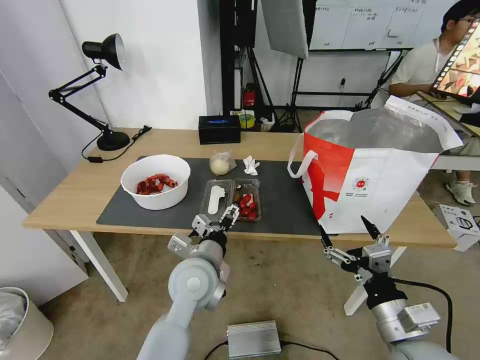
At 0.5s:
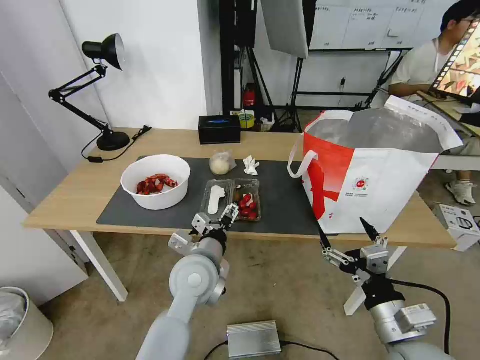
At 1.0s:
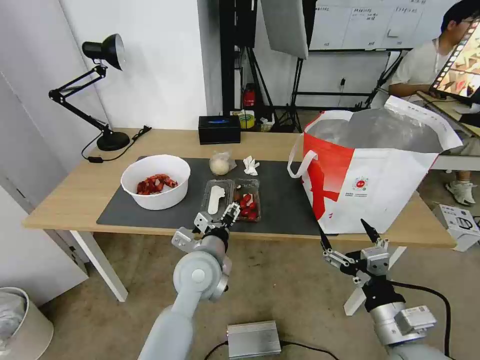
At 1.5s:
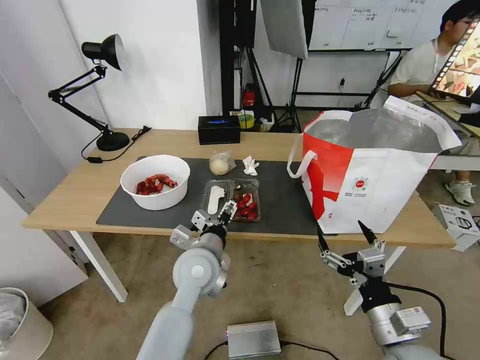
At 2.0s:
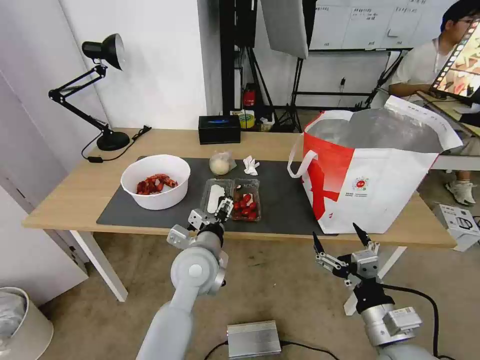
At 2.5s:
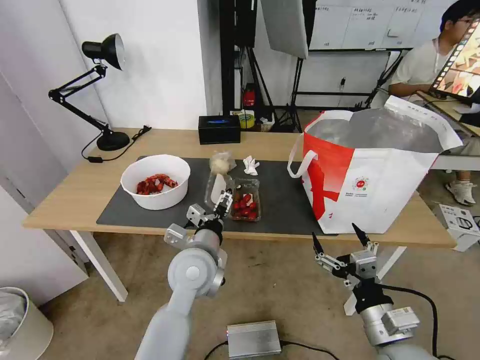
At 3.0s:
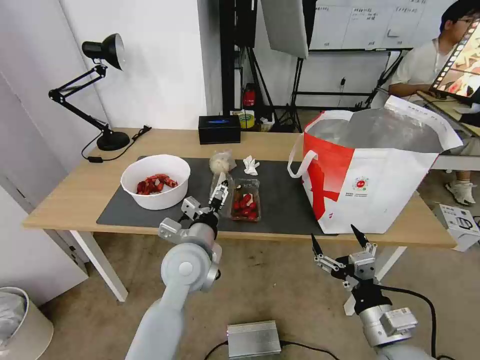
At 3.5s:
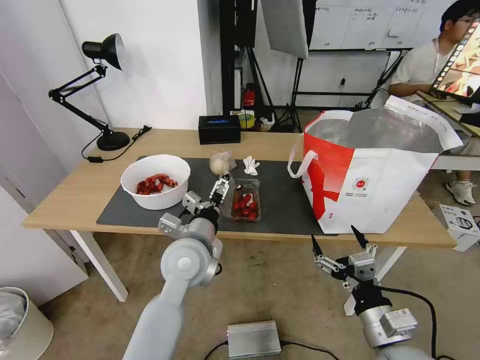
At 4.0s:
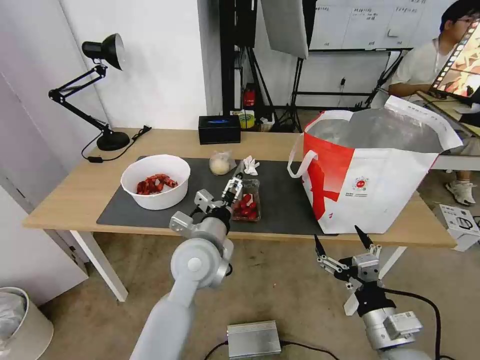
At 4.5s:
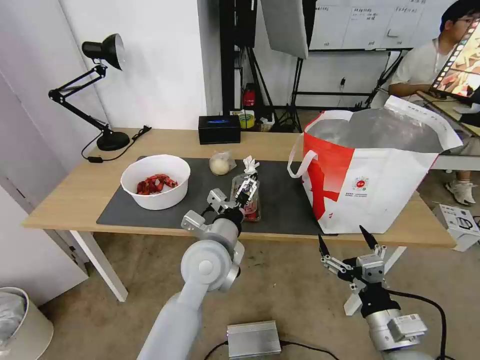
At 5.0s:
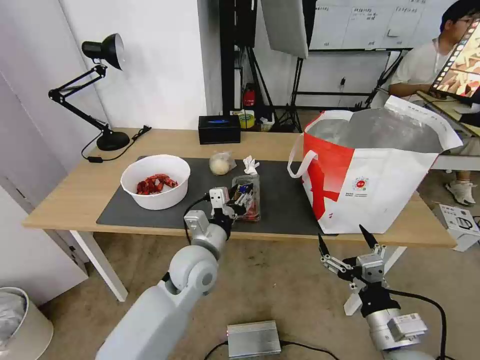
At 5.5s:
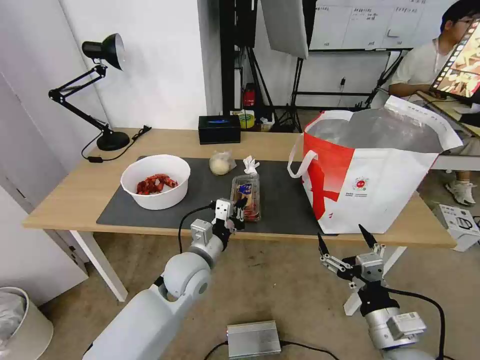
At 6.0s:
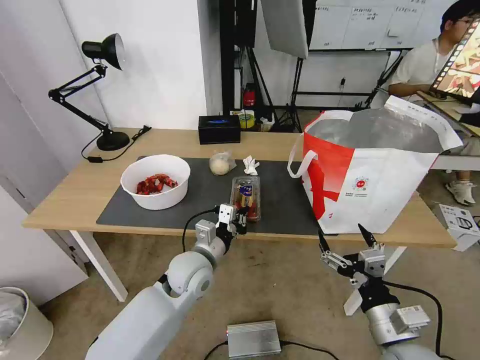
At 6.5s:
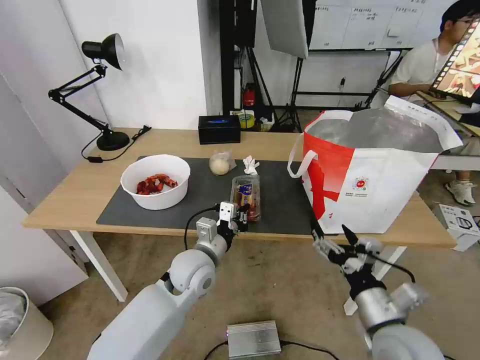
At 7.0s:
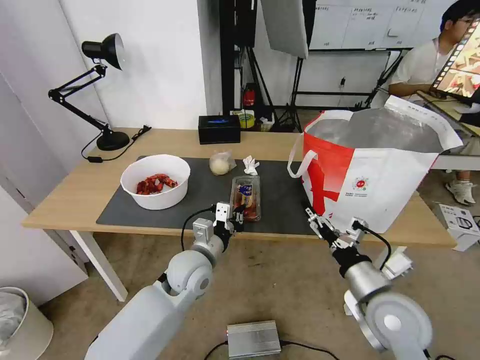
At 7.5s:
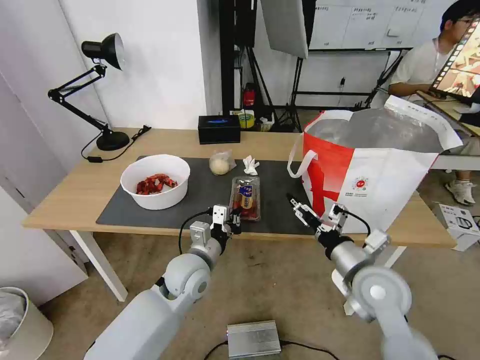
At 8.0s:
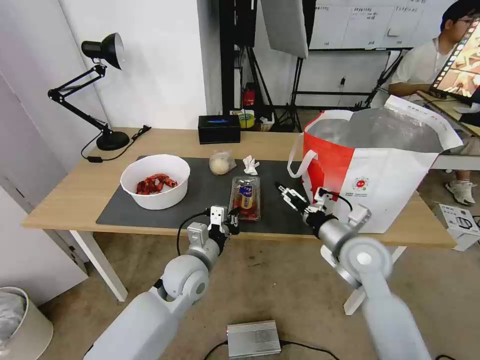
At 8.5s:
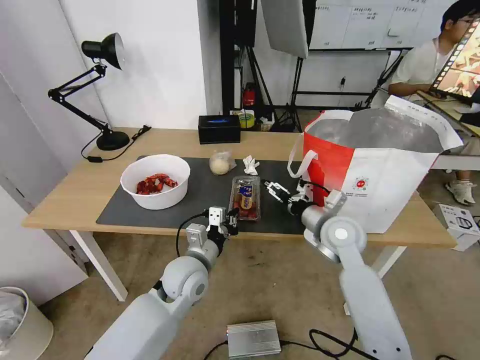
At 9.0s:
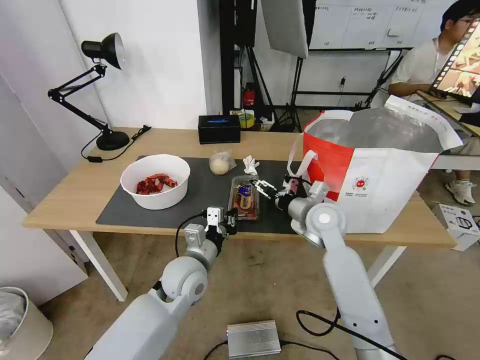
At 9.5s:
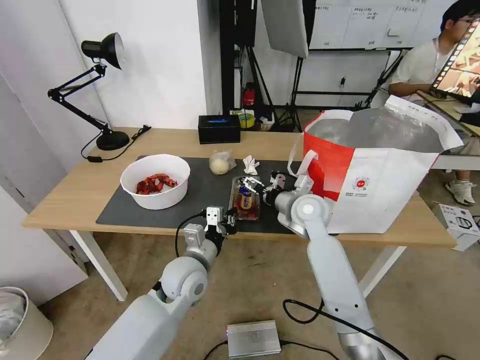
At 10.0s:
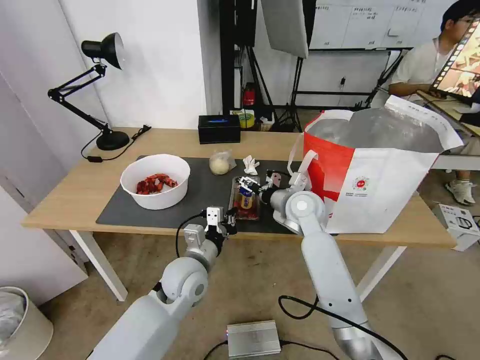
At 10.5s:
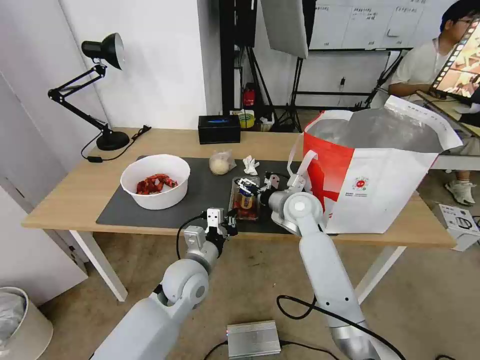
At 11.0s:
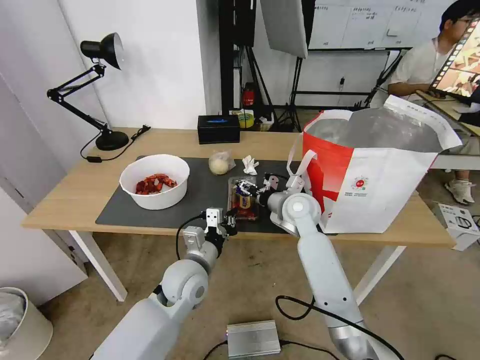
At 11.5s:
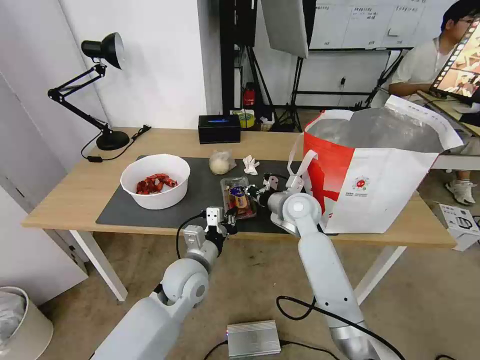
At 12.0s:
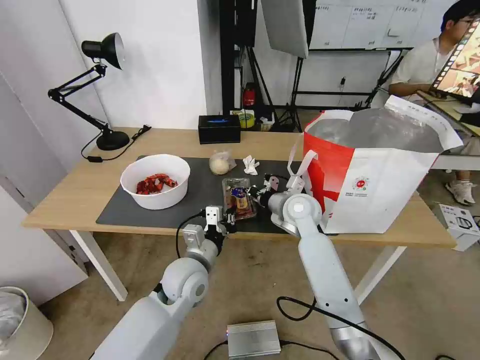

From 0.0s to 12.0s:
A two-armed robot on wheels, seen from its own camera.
Task of the whole recording: Pick up the trash from the table and place it into the takeout bag.
From 0.0s to 4.0s: The grippers stay close to where they were, moving slightly.
From 4.0s to 6.0s: The left gripper moves downward, some 10 cm, and closes.
From 6.0s to 8.0s: The right gripper heads forward, covering approximately 20 cm.
From 8.0s to 10.0s: The right gripper travels forward and to the left by about 15 cm.
From 10.0s to 12.0s: The right gripper closes.

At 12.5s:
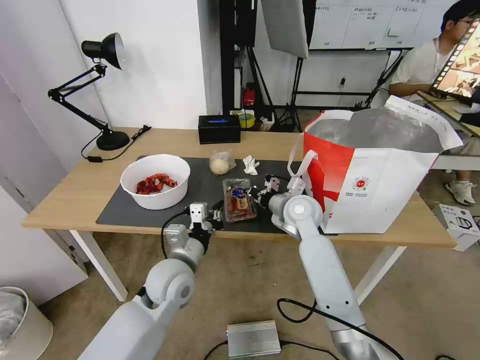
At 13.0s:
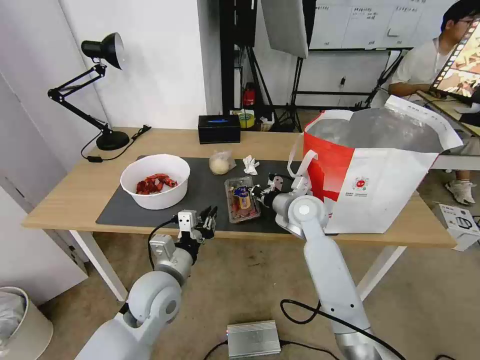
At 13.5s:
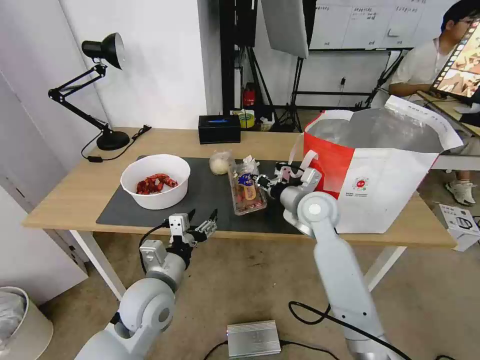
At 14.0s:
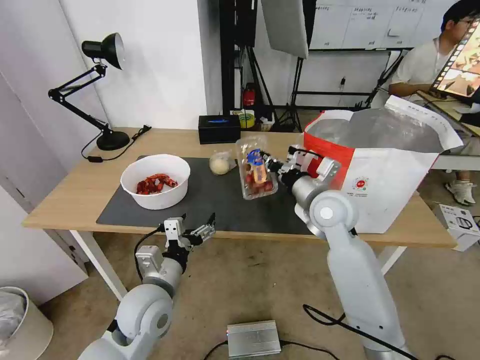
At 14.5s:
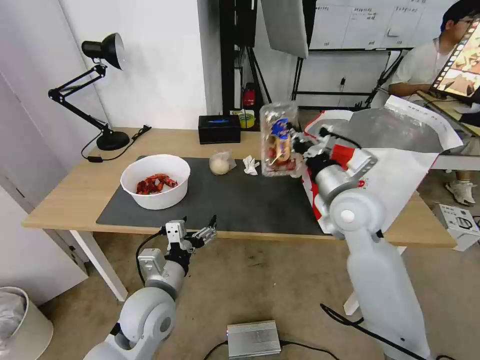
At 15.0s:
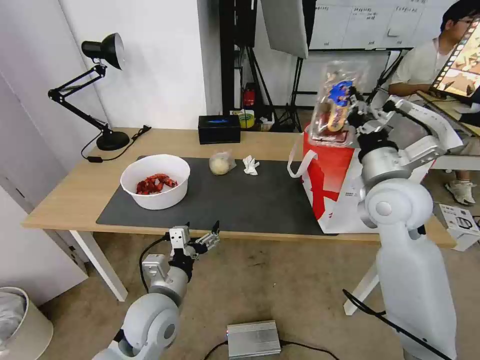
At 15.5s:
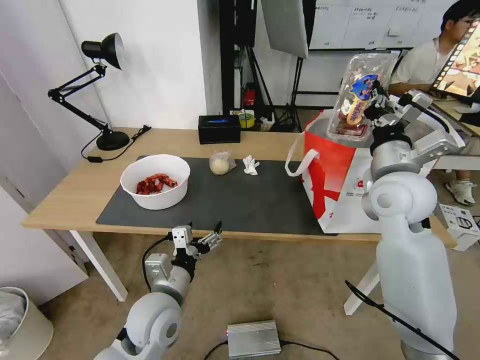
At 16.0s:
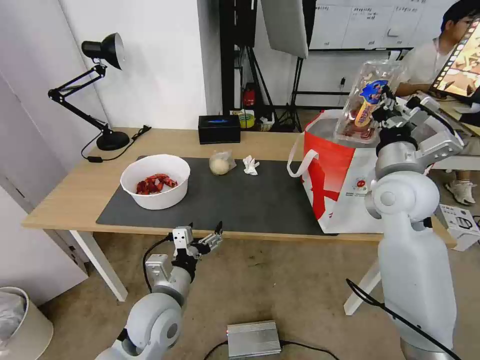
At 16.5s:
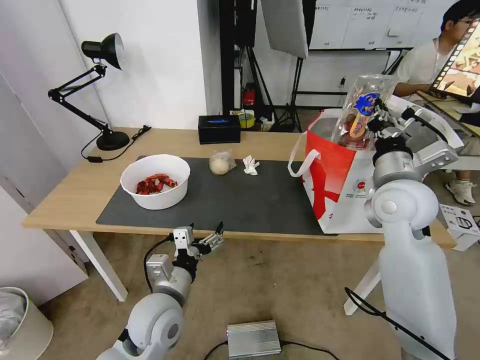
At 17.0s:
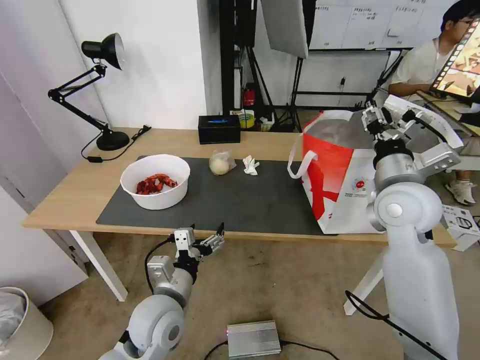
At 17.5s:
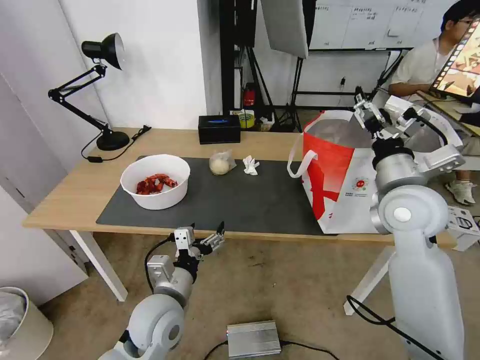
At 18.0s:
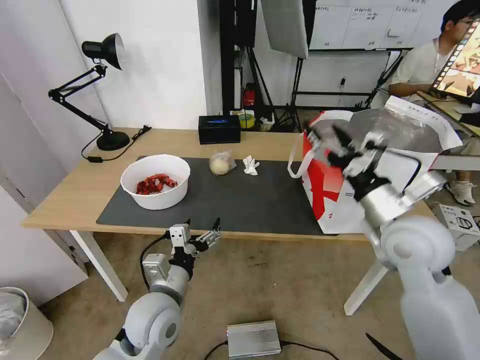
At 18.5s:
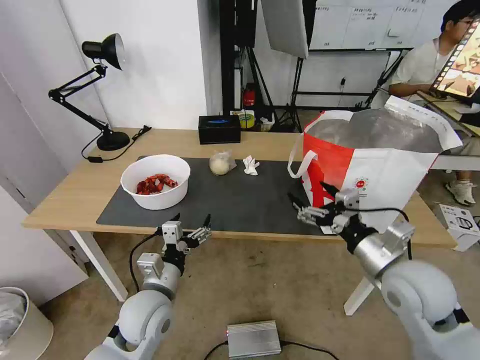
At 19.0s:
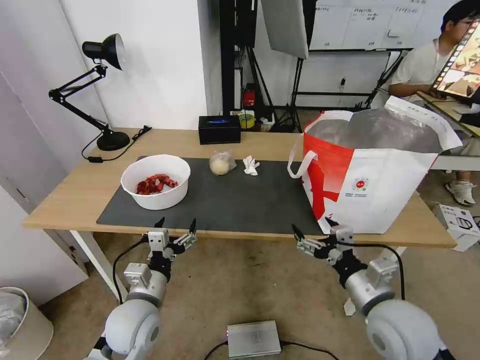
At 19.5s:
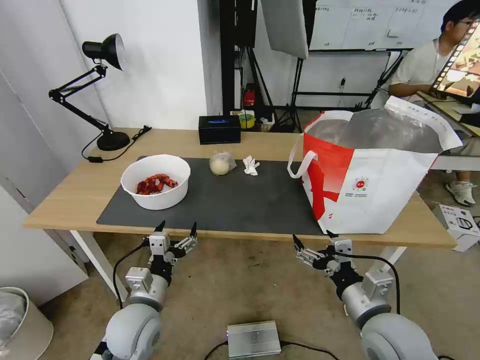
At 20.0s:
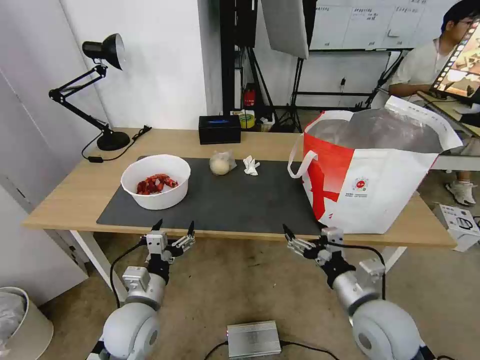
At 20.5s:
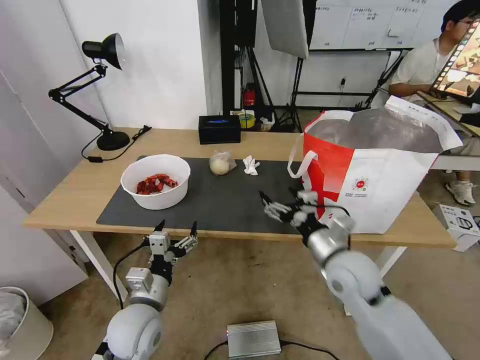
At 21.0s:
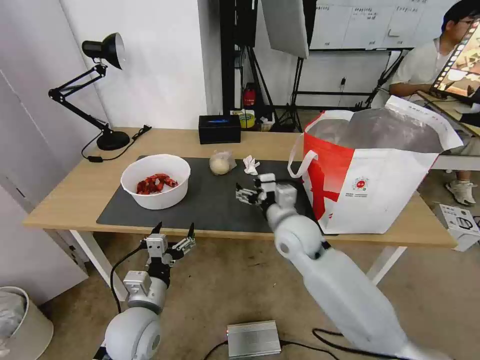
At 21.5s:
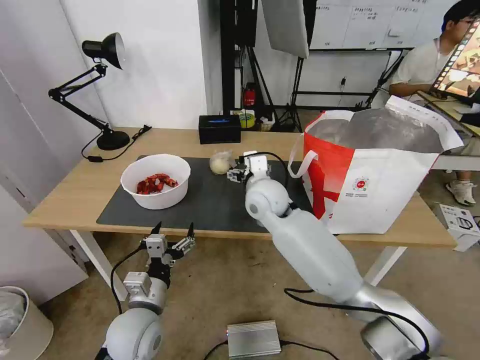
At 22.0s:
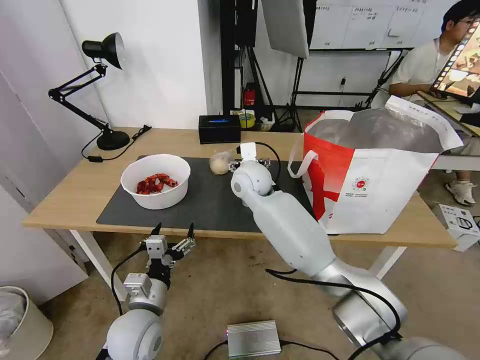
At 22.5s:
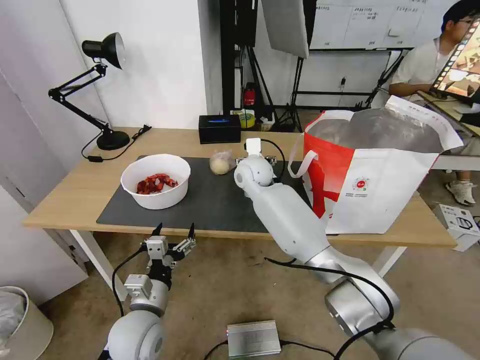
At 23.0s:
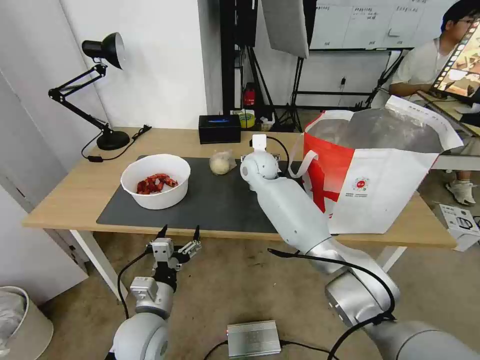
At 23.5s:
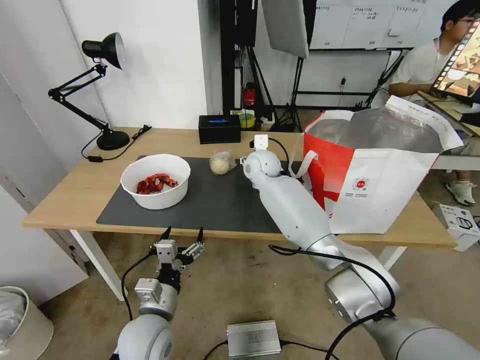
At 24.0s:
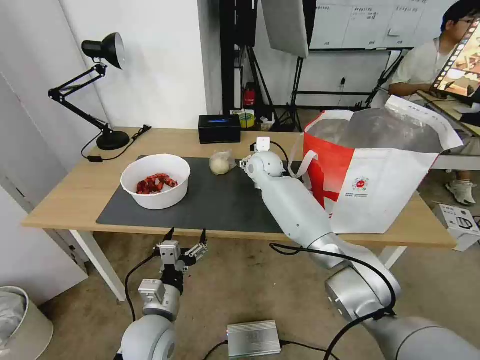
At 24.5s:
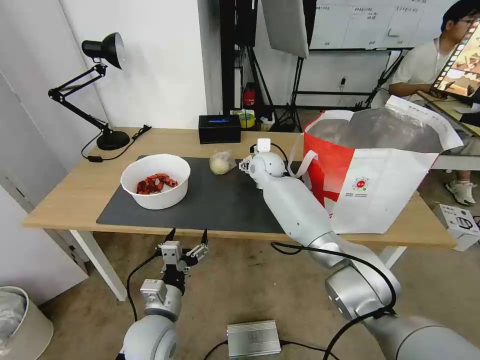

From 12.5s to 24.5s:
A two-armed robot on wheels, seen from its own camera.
Task of the whole recording: Pick up the trash from the table and place it into the takeout bag.
From 12.5s to 14.5s: The left gripper shifts approximately 5 cm backward, and opens. The right gripper is displaced upward, backward and to the right by approximately 15 cm.
From 14.5s to 16.5s: The right gripper goes about 5 cm to the right.
From 16.5s to 18.5s: The right gripper shifts about 15 cm backward and downward, and opens its fingers.
From 18.5s to 20.5s: The right gripper goes roughly 5 cm to the left.
From 20.5s to 22.5s: The right gripper travels forward and to the left by approximately 30 cm.
From 22.5s to 24.5s: The right gripper moves some 5 cm.

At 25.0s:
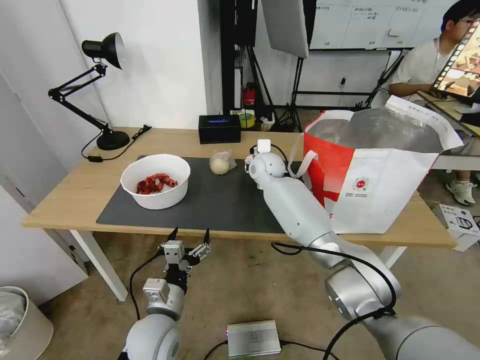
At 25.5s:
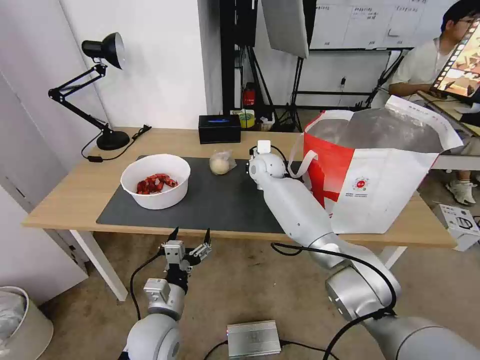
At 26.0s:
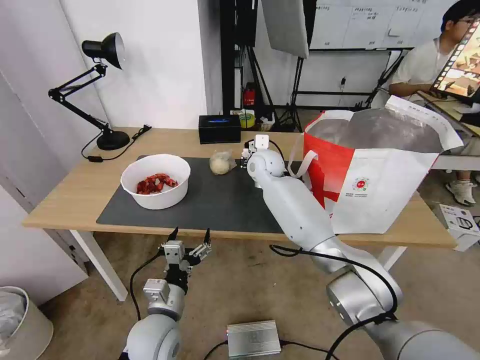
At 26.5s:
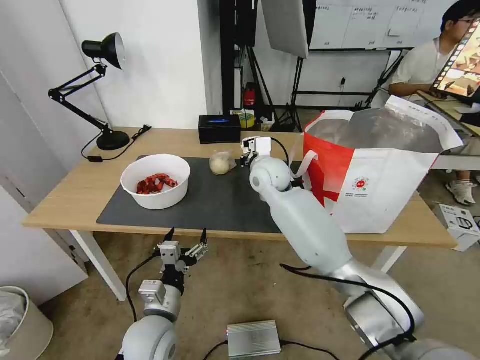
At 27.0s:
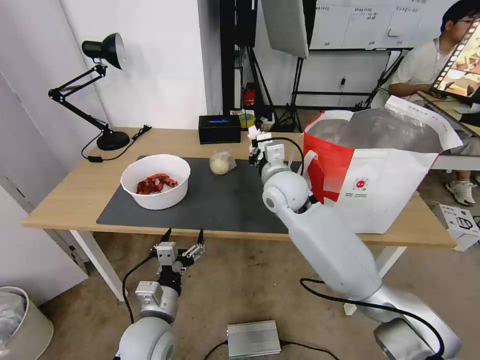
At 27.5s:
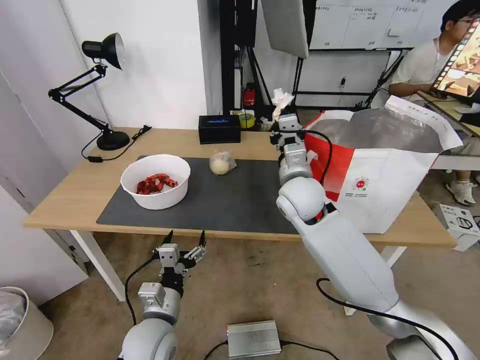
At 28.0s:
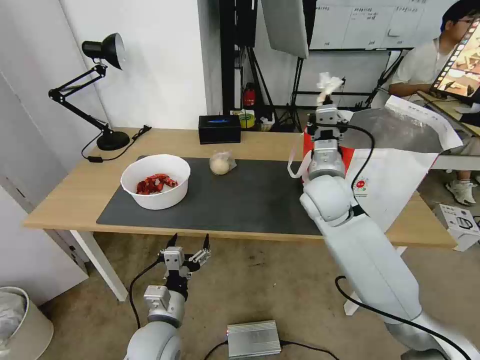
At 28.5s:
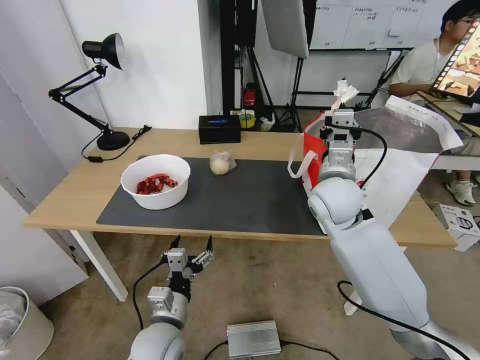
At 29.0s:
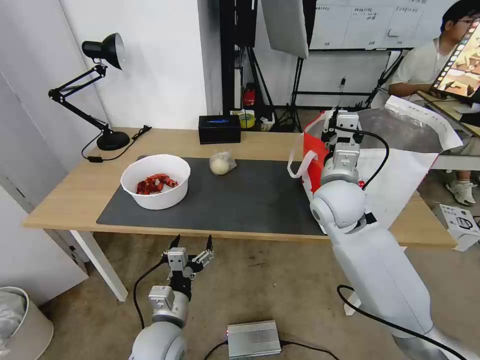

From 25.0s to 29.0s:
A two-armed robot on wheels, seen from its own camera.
Task of the whole recording: Pick up the trash from the table and place it into the takeout bag.
From 25.0s to 27.0s: The right gripper shifts approximately 15 cm backward, and closes up.
From 27.0s to 29.0s: The right gripper heads to the right and backward, covering about 10 cm.
